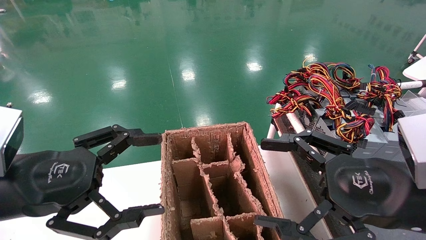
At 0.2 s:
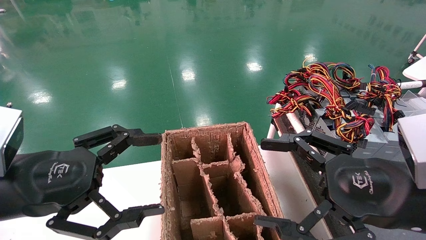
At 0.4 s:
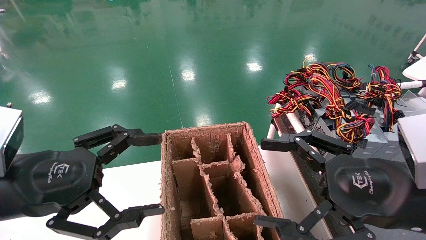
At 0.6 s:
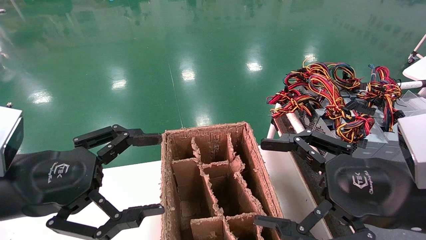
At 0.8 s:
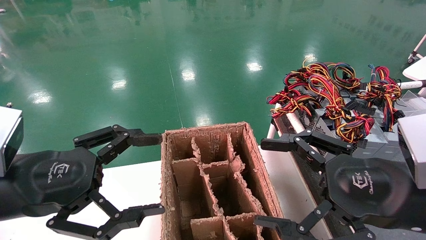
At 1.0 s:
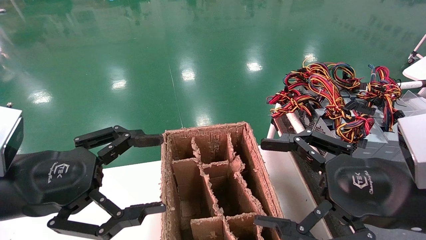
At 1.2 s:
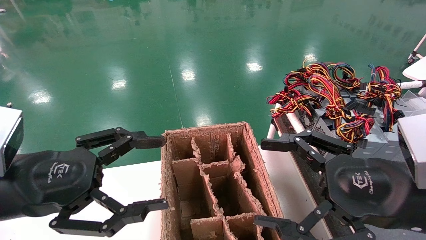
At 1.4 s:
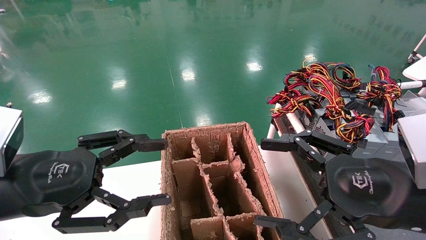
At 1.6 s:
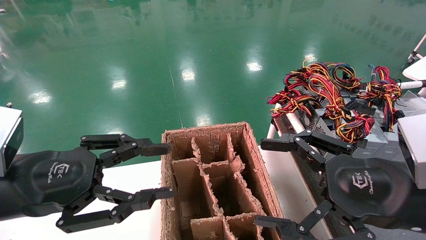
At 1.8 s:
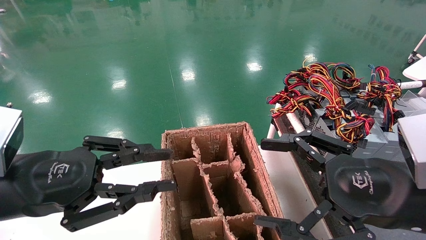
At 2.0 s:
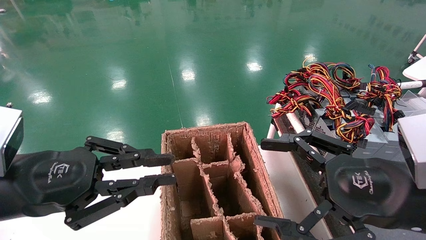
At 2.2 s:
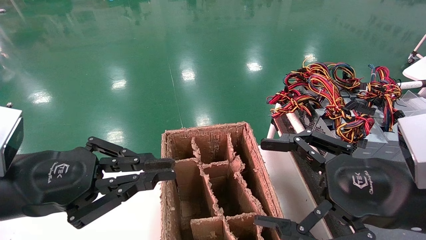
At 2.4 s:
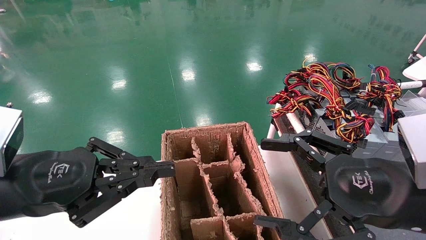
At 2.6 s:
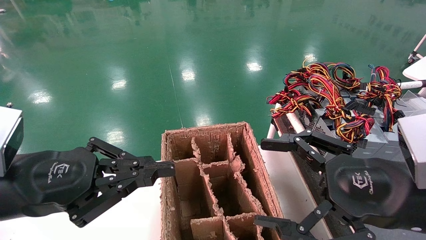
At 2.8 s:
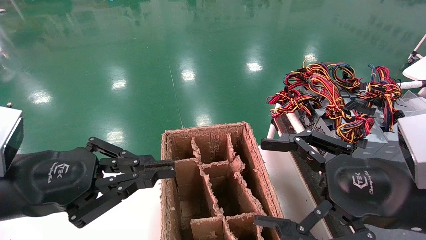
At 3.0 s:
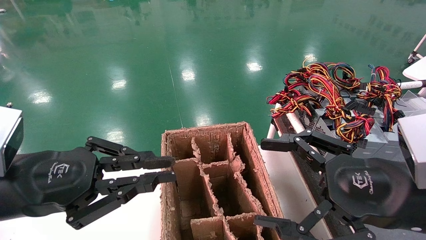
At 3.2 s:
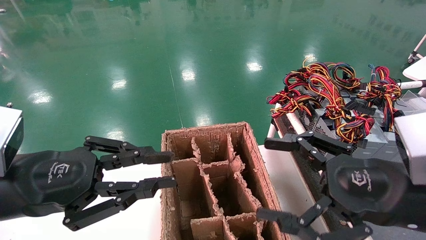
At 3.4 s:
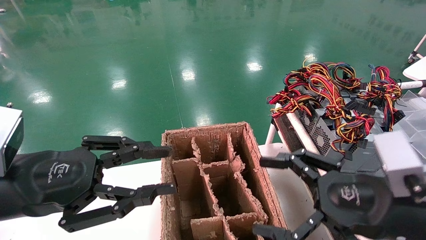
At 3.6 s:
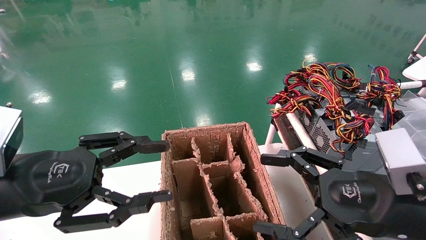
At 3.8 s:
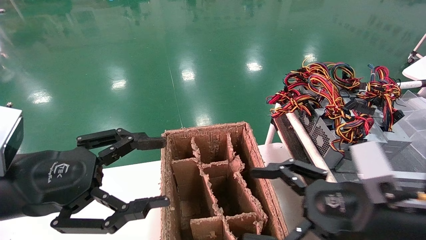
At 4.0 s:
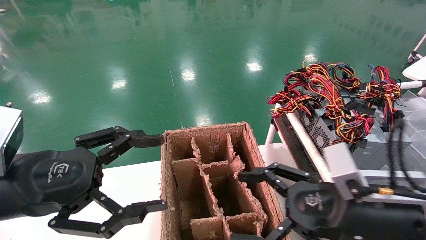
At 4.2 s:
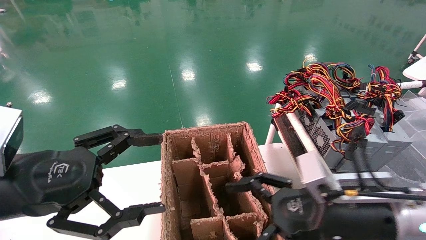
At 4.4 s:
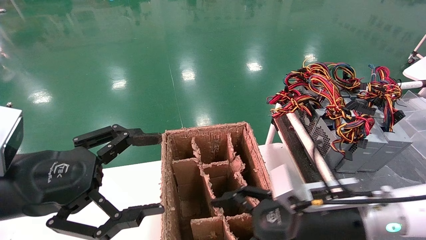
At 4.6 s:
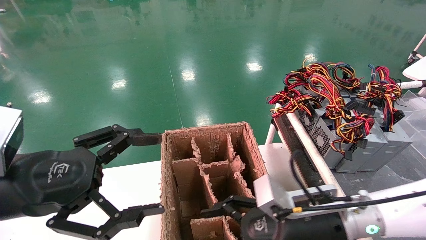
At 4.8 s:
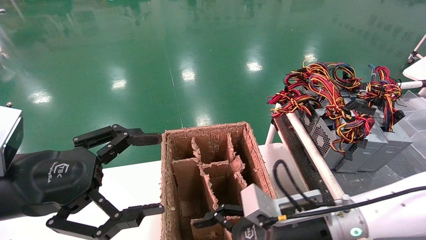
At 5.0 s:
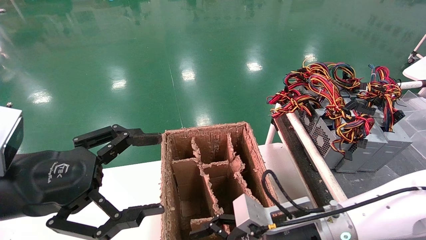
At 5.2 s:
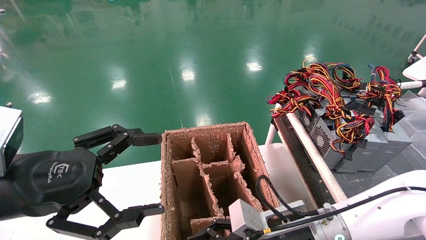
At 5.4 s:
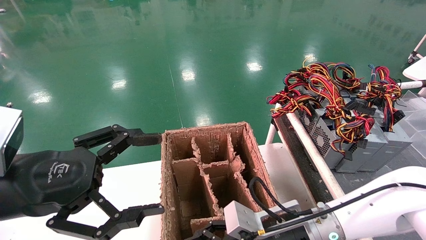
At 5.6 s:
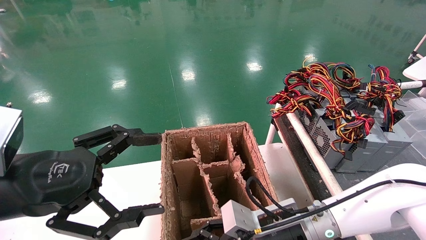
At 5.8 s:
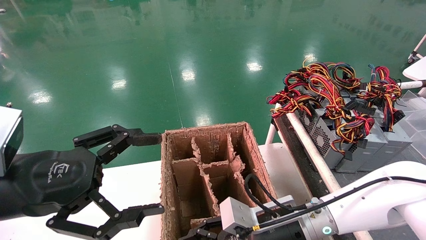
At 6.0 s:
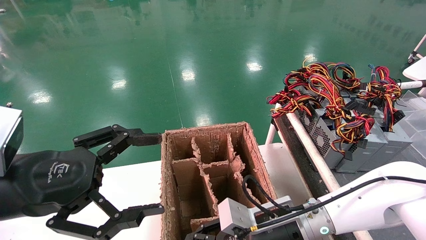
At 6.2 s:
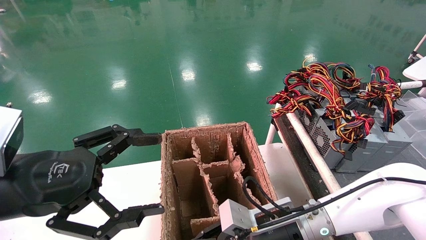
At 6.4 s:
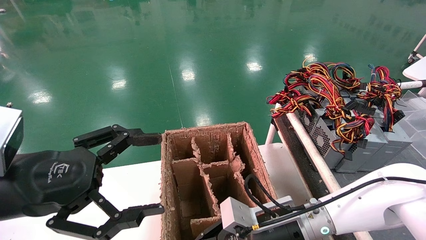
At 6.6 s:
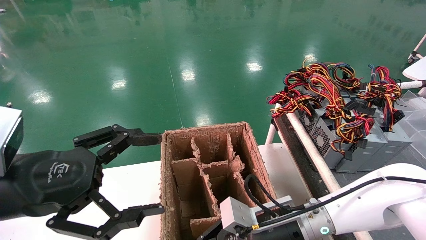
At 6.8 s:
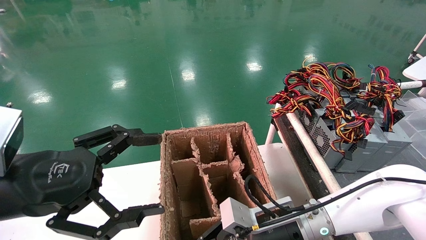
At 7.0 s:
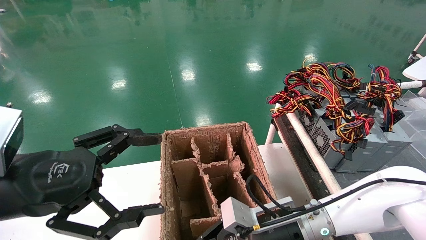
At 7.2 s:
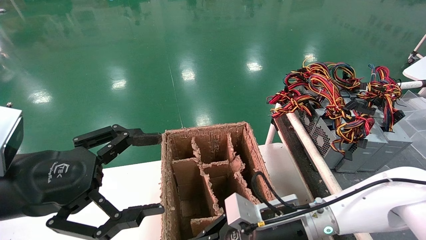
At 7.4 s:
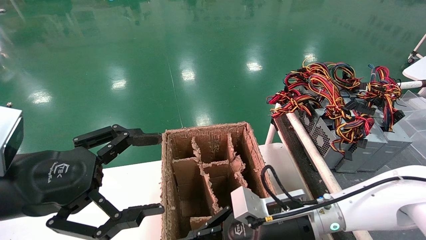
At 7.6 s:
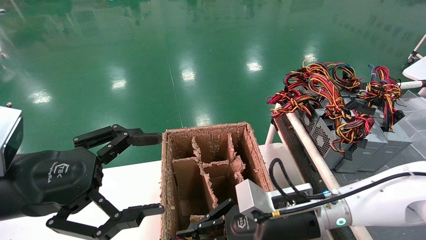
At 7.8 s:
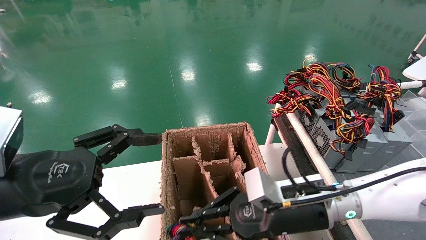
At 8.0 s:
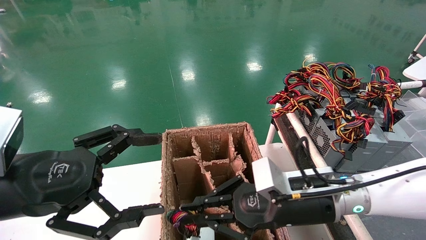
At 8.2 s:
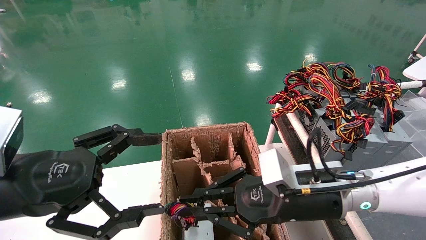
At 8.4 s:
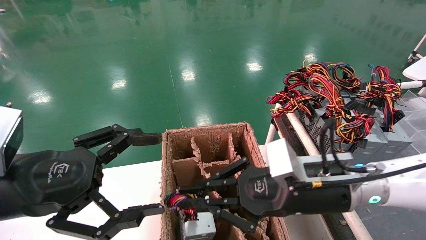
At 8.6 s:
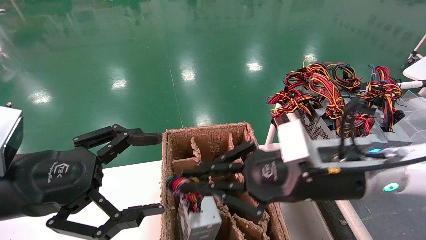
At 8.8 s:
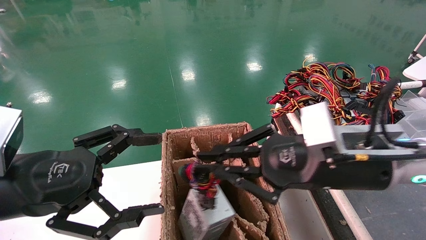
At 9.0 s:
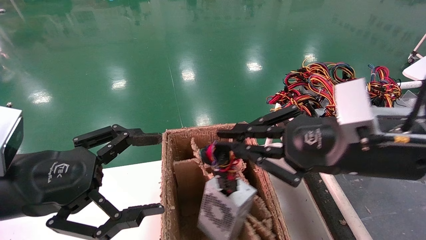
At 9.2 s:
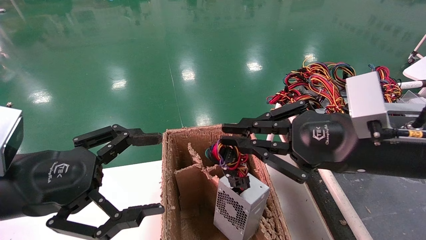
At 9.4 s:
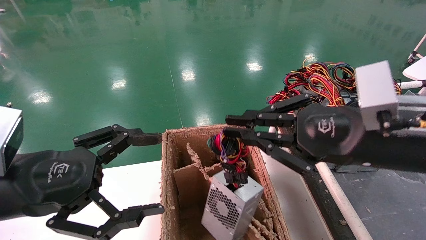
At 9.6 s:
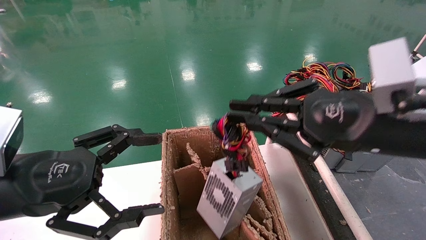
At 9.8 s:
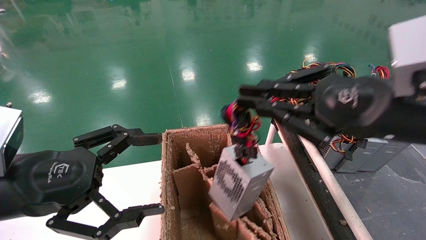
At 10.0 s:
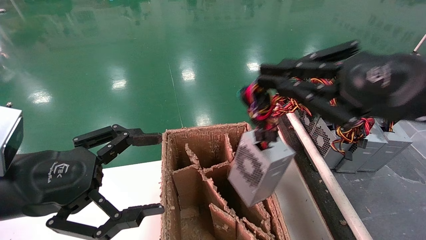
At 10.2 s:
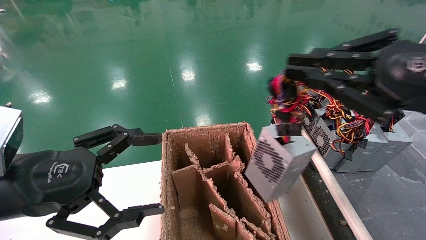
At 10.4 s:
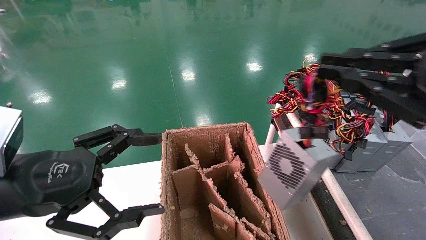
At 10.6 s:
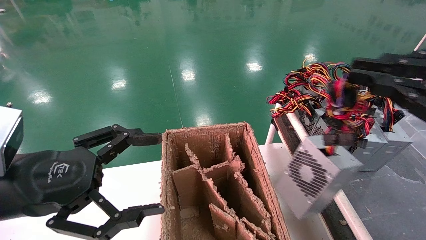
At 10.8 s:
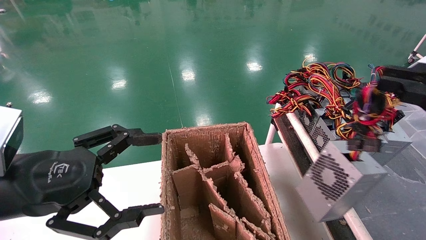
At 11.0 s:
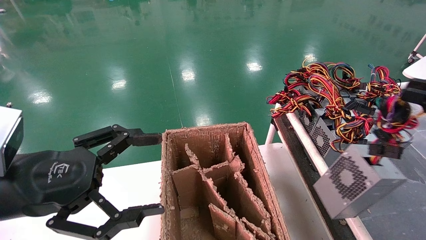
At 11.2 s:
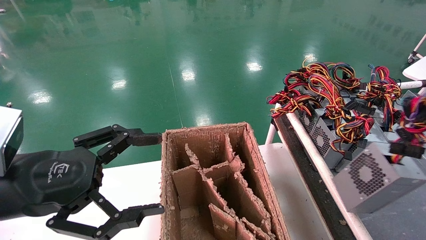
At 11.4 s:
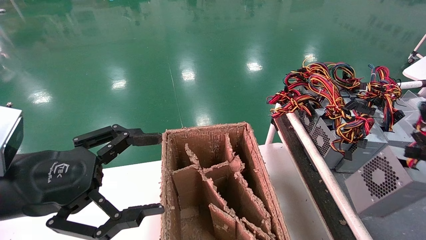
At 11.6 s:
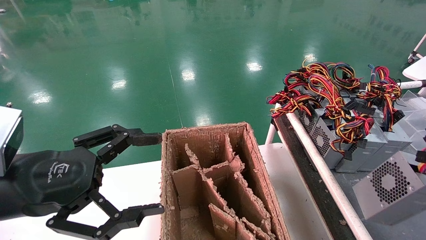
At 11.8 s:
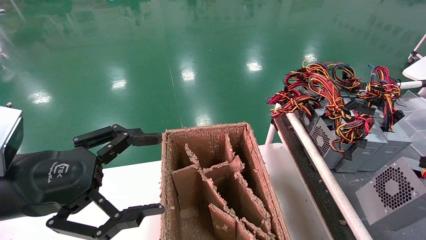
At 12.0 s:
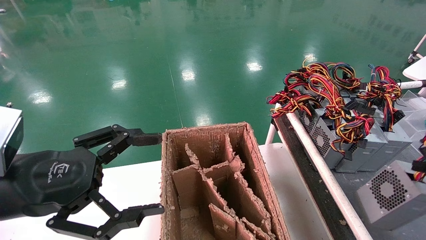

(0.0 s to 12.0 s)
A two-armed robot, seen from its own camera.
Step, 2.4 s - 7.0 s: Grab and lift the power supply from the large box.
0.0 s - 1.6 s: The left gripper closes up.
1.6 s - 3.0 s: The left gripper closes.
3.0 s - 4.4 s: The right gripper shifts roughly 15 cm downward, to the left and forward; the left gripper opens.
4.4 s - 6.0 s: The right gripper is displaced to the left and downward by approximately 10 cm, and closes up.
6.0 s - 7.6 s: The right gripper closes up.
7.6 s - 9.0 s: The right gripper goes about 15 cm upward and to the right.
9.0 s - 10.4 s: The right gripper shifts roughly 15 cm to the right, upward and backward.
10.4 s - 12.0 s: The right gripper shifts some 20 cm to the right and downward.

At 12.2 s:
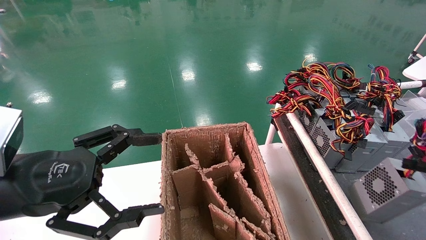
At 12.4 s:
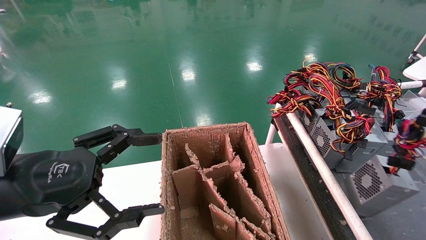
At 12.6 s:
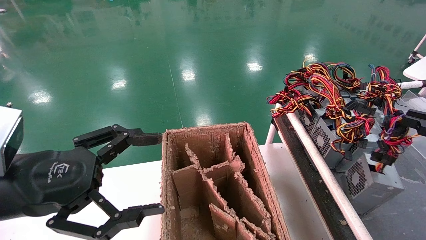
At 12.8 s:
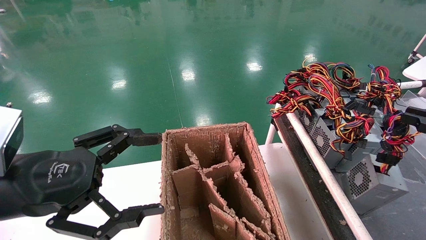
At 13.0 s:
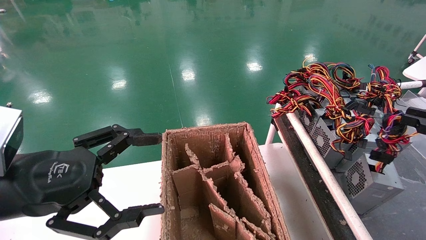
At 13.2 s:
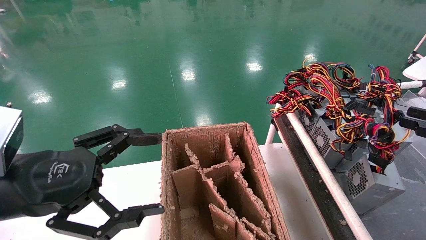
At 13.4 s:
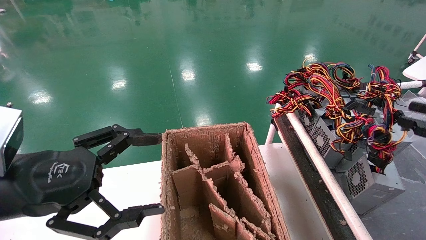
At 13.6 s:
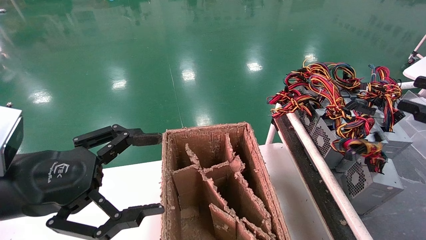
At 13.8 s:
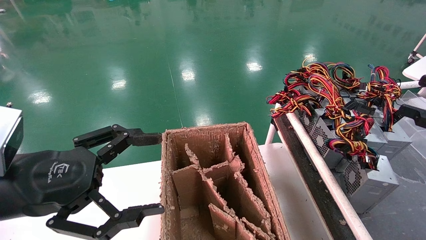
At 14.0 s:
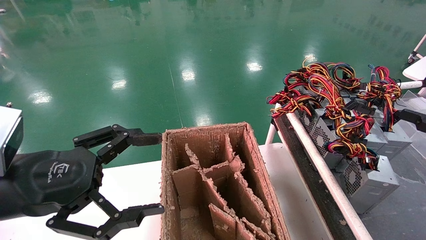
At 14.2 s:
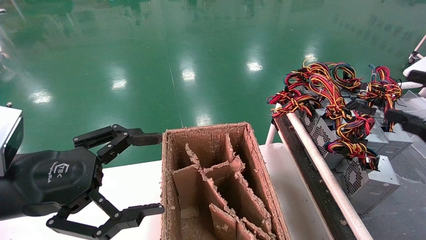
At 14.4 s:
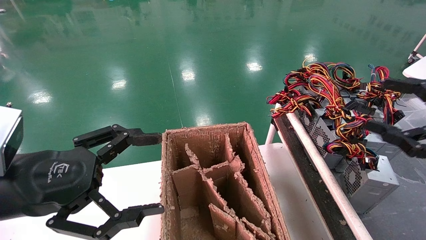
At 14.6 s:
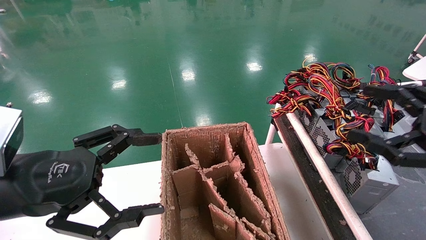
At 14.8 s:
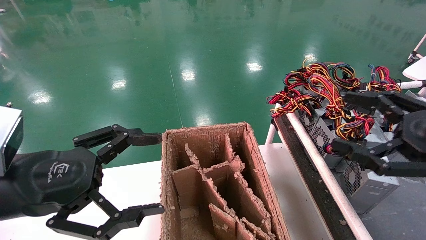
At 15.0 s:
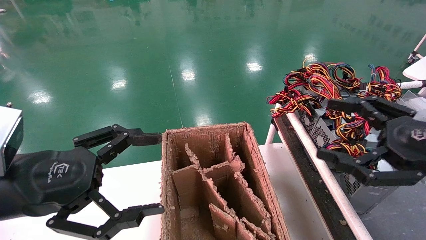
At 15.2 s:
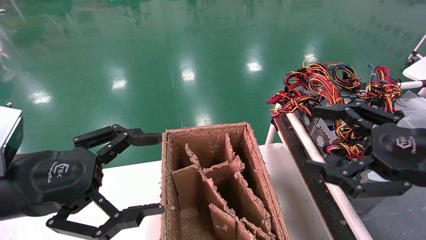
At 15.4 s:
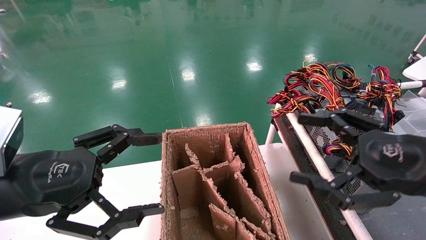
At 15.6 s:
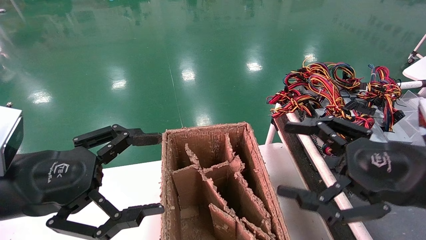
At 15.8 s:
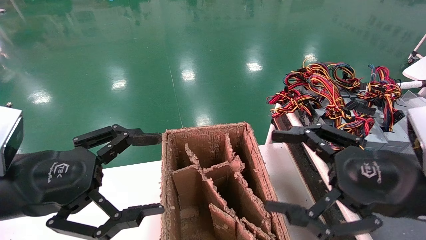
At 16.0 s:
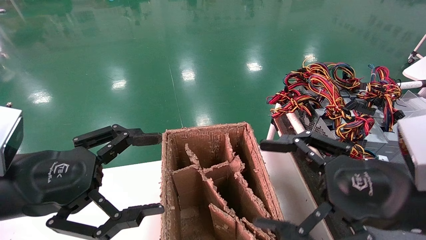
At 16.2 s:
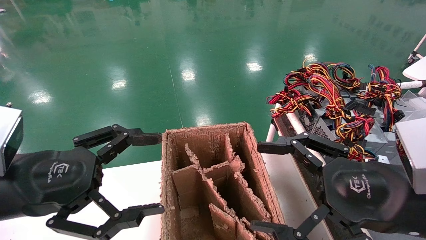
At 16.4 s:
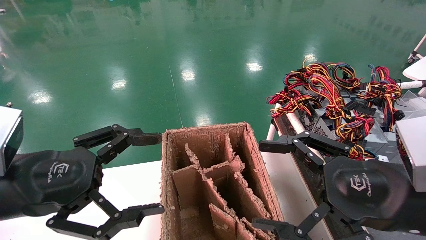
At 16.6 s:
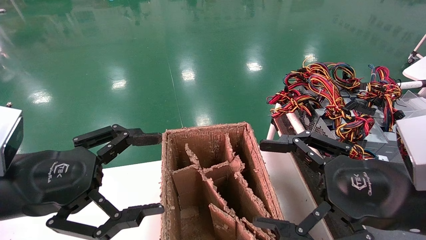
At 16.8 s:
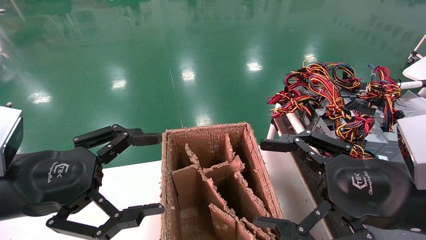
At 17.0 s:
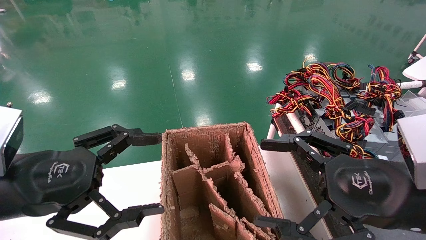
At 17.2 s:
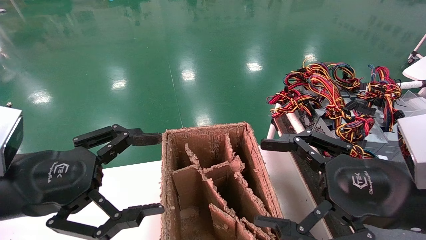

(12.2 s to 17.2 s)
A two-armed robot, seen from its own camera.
12.2 s - 13.8 s: The right gripper shifts by about 5 cm, and opens its fingers.
13.8 s - 15.6 s: The right gripper is displaced to the left by approximately 20 cm, and opens.
15.6 s - 17.2 s: There are only small adjustments of the grippers.
